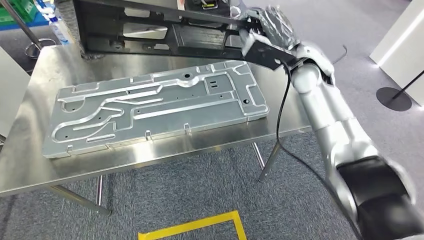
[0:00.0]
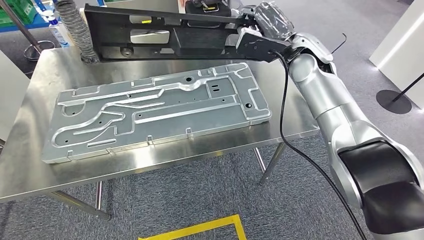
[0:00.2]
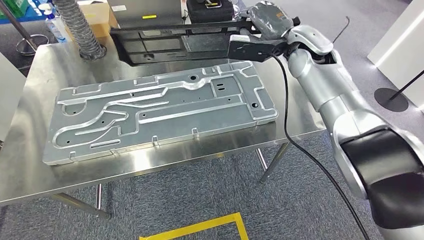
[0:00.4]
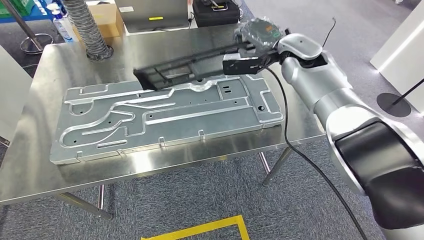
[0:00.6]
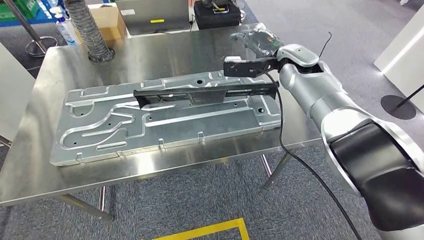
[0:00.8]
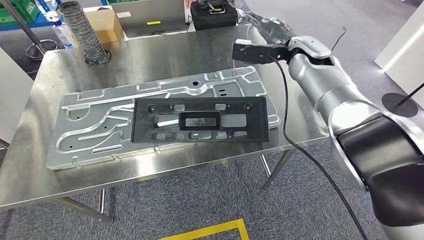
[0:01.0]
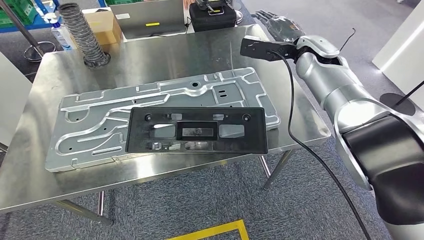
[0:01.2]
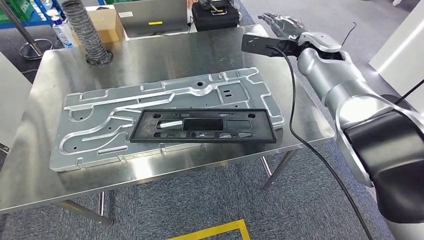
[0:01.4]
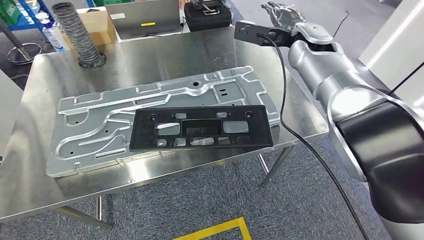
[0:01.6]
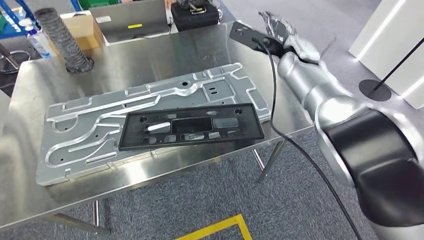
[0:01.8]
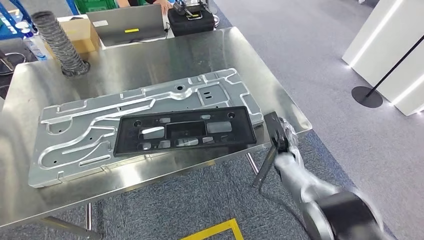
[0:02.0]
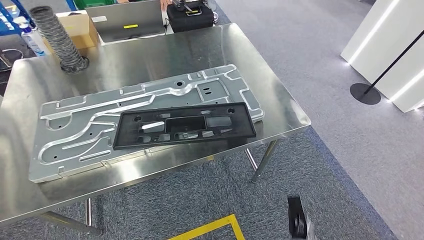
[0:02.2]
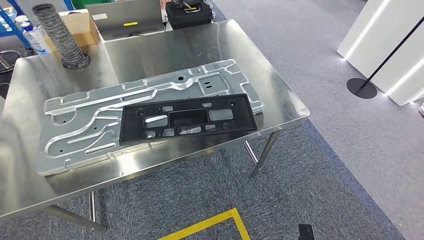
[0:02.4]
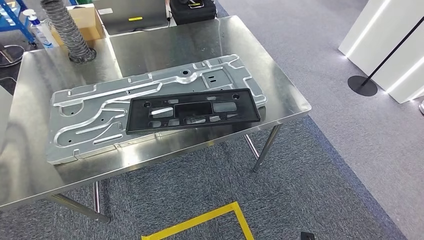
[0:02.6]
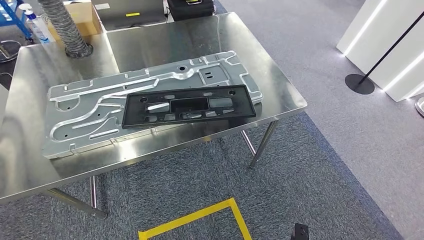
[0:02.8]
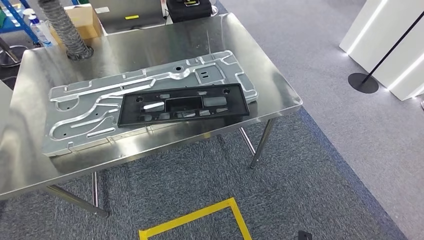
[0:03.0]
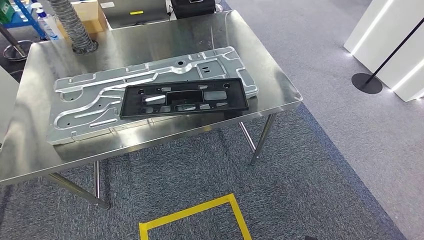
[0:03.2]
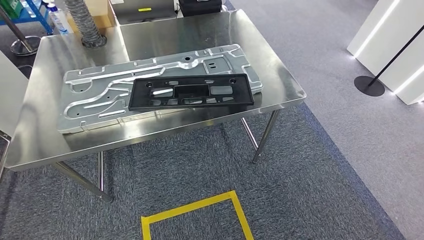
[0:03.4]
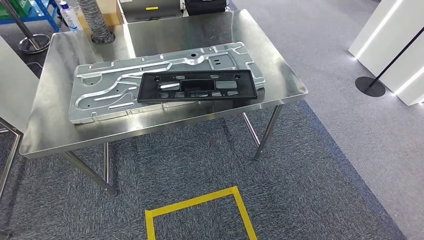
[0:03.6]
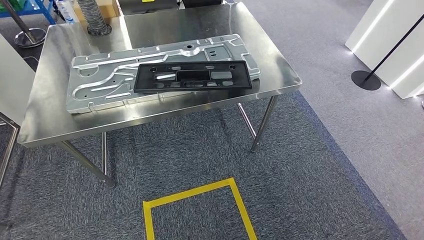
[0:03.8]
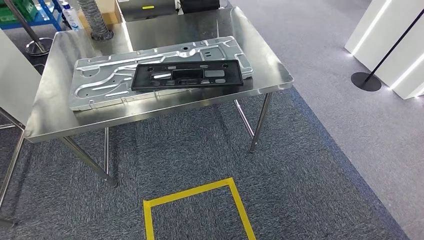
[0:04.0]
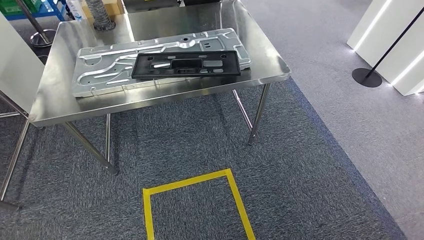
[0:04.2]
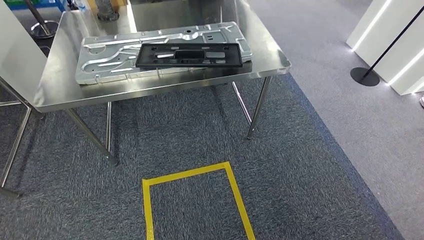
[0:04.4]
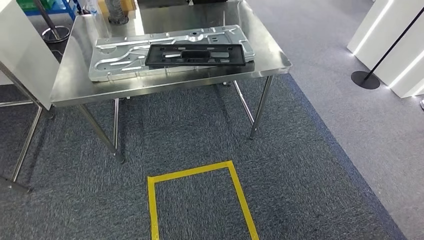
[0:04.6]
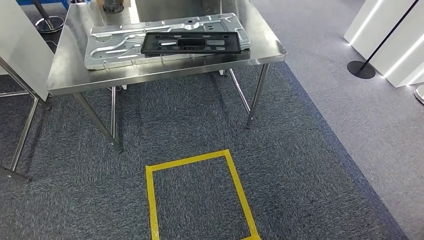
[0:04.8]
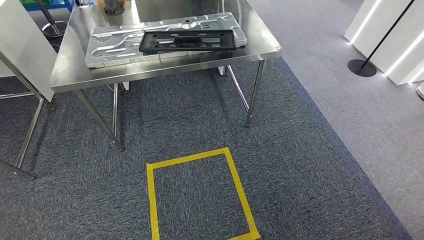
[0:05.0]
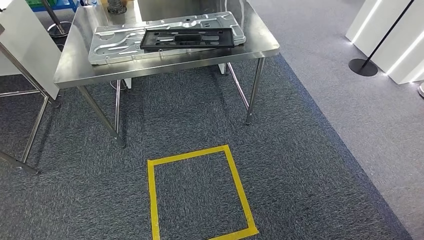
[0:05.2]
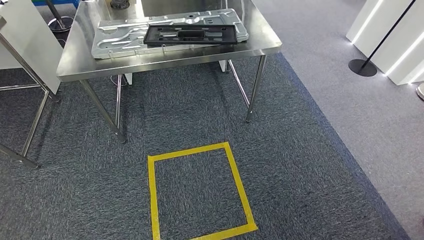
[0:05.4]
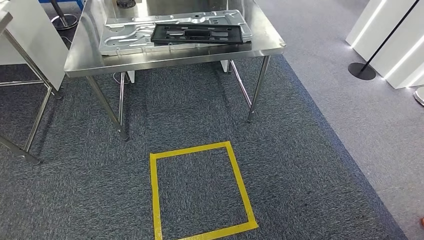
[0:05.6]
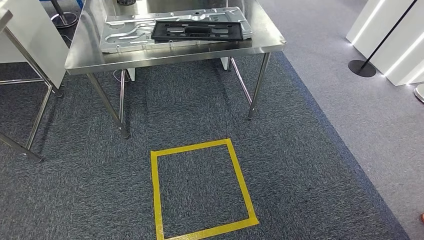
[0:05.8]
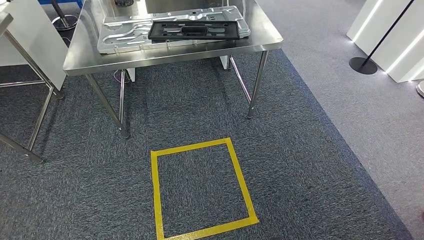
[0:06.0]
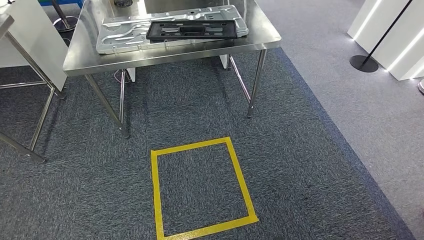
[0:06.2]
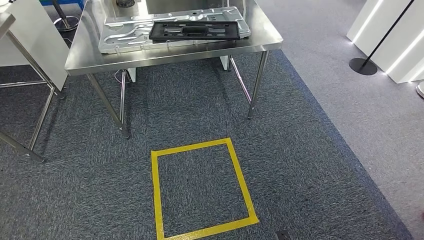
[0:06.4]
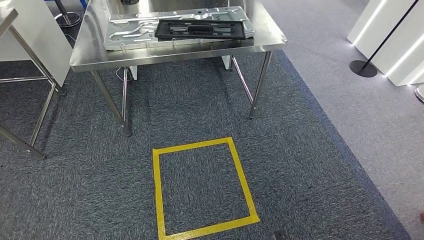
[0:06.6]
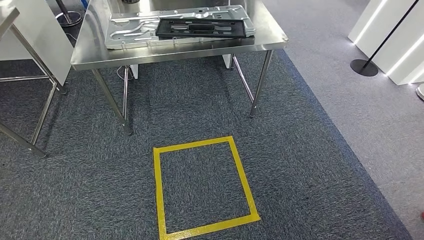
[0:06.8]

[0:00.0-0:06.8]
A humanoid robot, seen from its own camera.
Step, 0:00.0 to 0:01.8: Insert the large material into the corresponding slot on the workbench.
Step, 0:02.8 to 0:06.8: Return to the initial position at the shelf.
